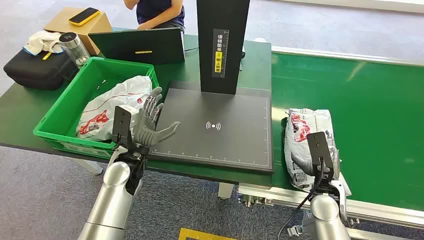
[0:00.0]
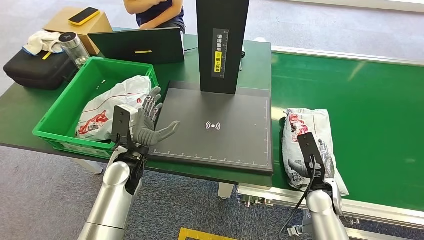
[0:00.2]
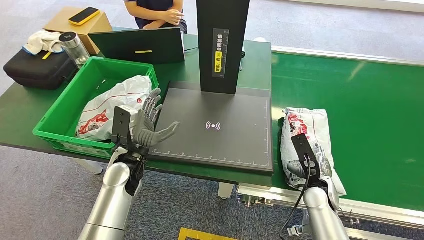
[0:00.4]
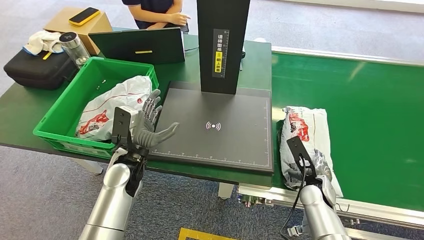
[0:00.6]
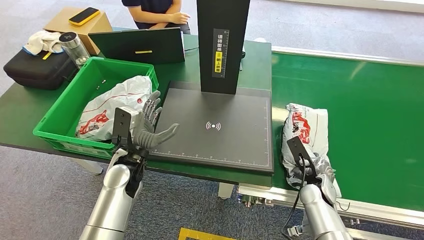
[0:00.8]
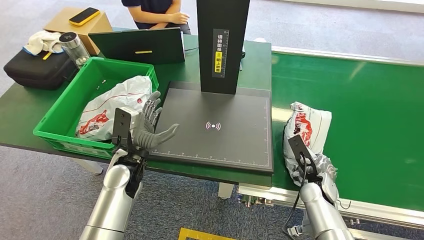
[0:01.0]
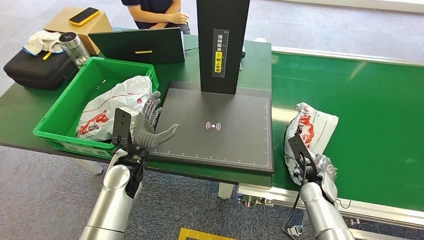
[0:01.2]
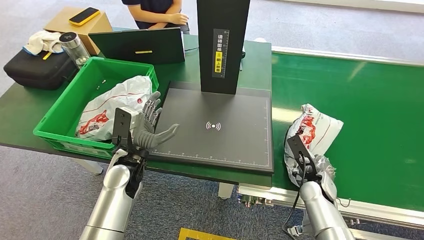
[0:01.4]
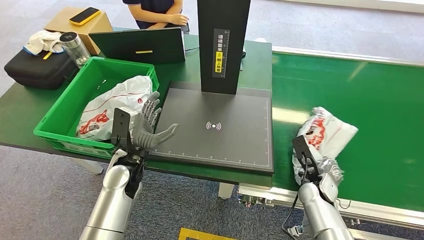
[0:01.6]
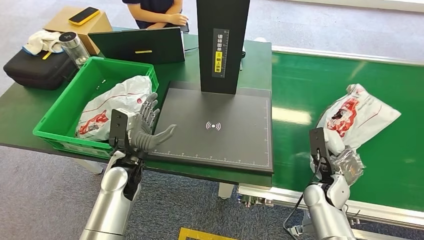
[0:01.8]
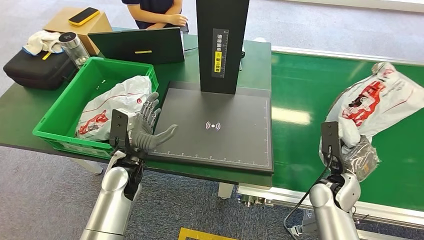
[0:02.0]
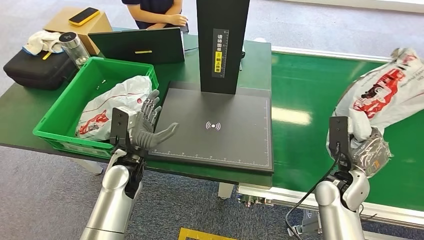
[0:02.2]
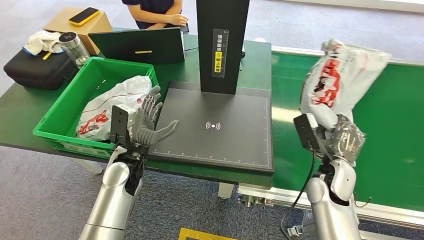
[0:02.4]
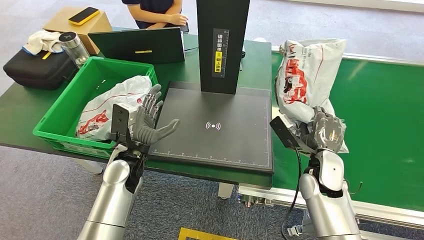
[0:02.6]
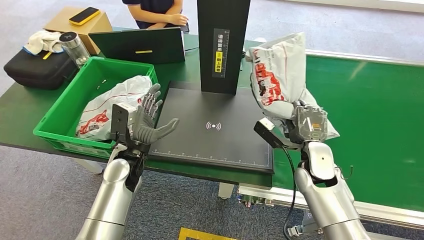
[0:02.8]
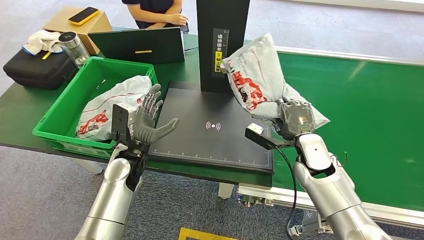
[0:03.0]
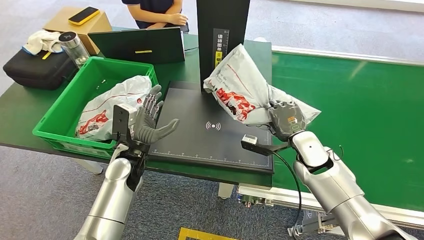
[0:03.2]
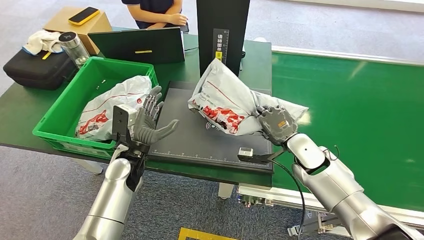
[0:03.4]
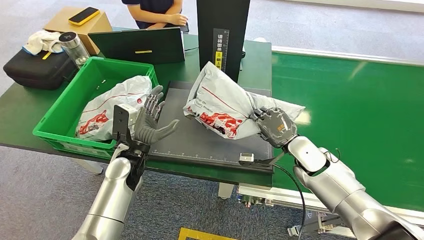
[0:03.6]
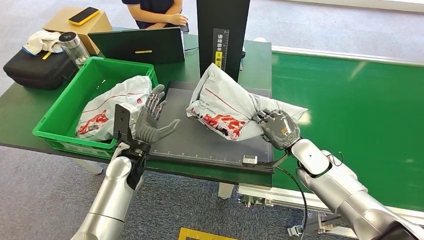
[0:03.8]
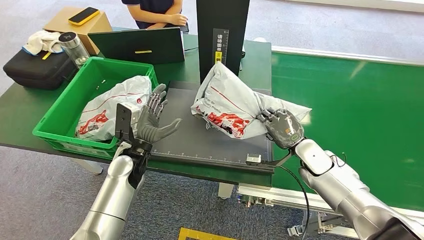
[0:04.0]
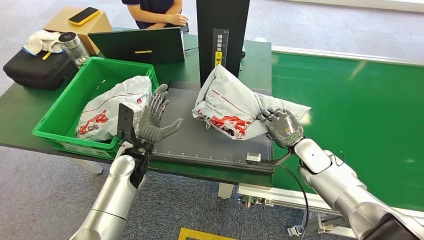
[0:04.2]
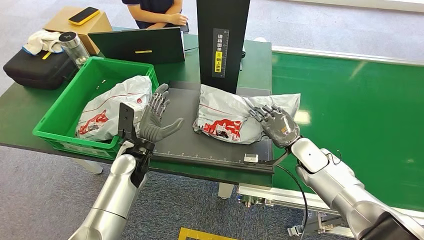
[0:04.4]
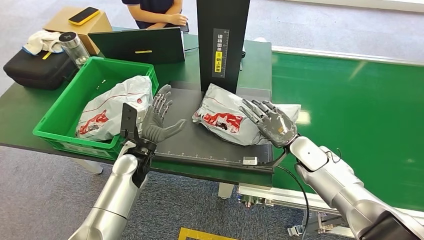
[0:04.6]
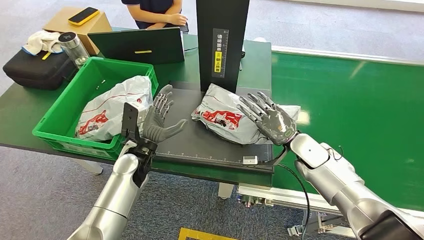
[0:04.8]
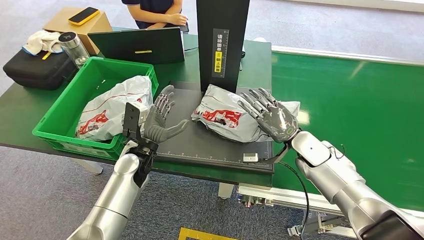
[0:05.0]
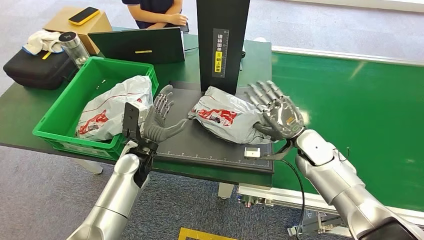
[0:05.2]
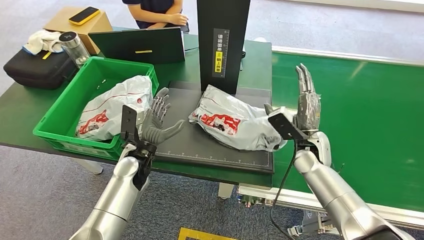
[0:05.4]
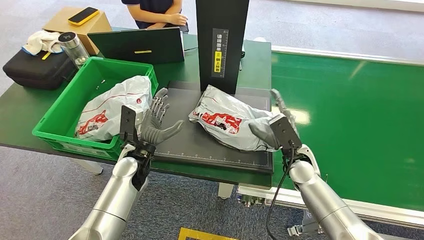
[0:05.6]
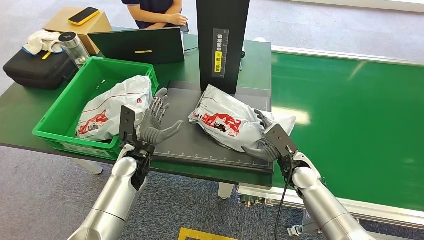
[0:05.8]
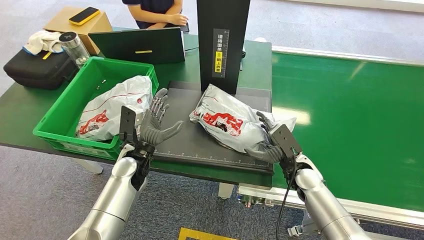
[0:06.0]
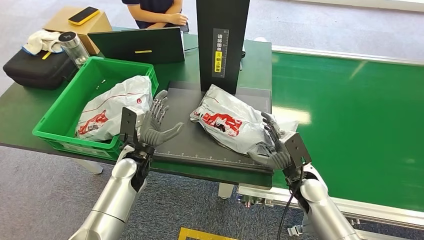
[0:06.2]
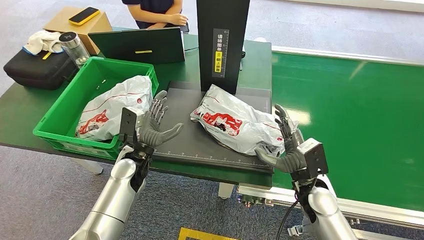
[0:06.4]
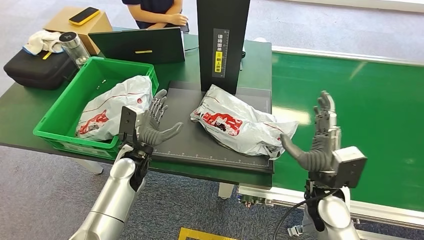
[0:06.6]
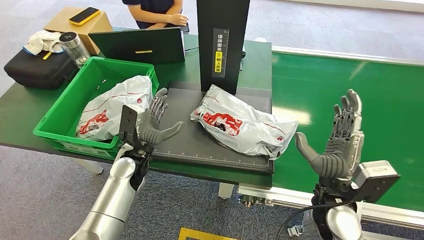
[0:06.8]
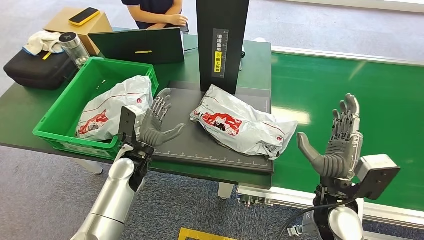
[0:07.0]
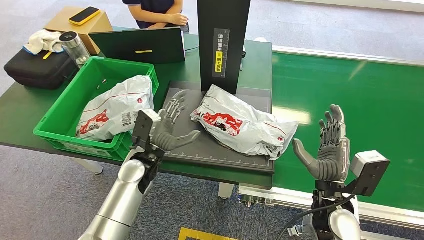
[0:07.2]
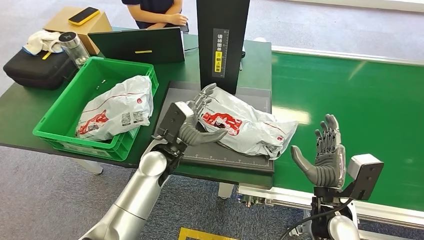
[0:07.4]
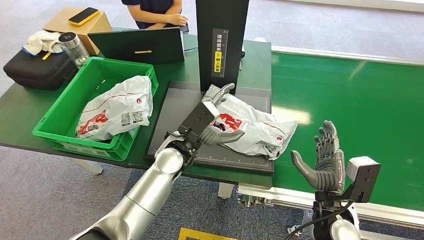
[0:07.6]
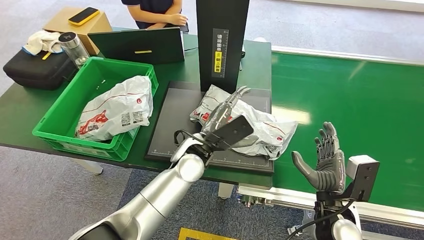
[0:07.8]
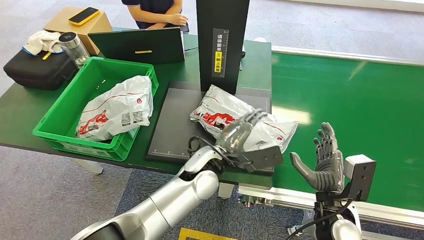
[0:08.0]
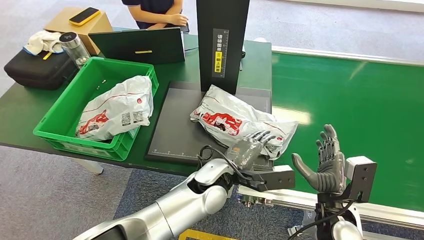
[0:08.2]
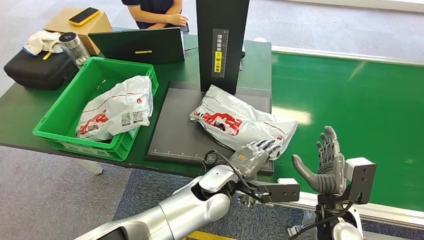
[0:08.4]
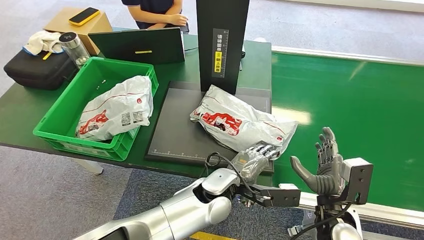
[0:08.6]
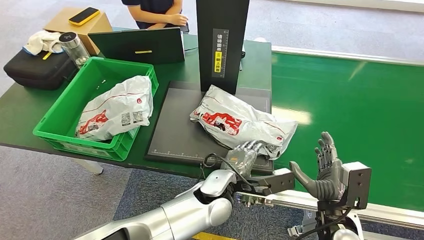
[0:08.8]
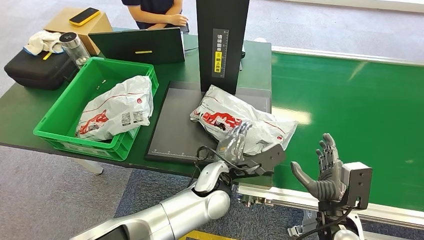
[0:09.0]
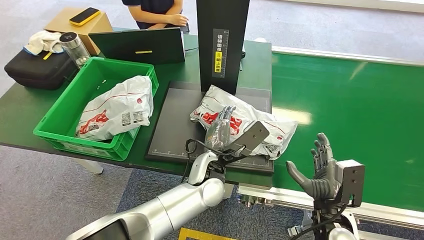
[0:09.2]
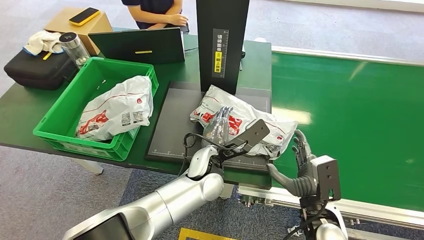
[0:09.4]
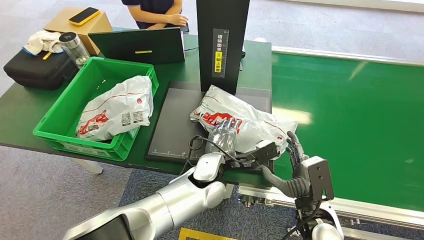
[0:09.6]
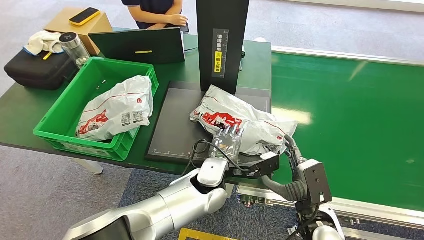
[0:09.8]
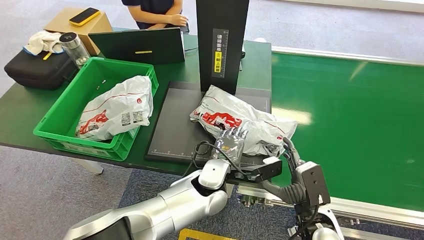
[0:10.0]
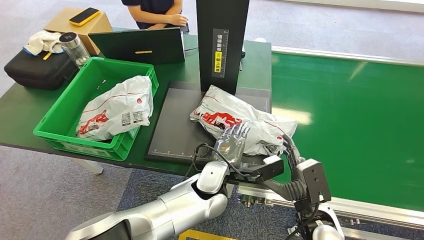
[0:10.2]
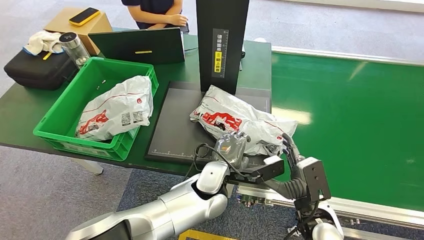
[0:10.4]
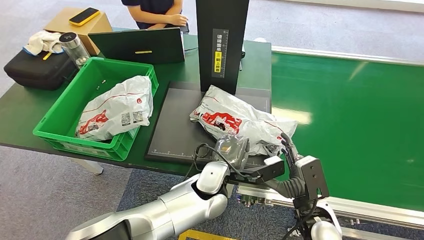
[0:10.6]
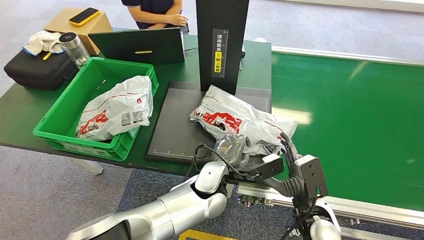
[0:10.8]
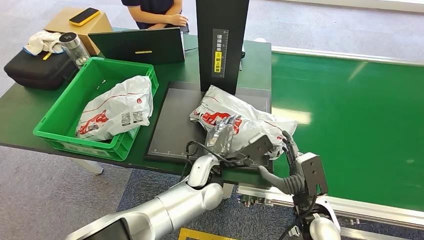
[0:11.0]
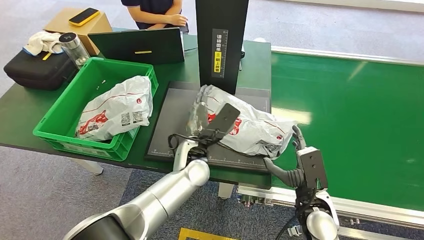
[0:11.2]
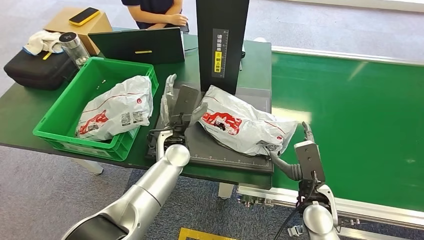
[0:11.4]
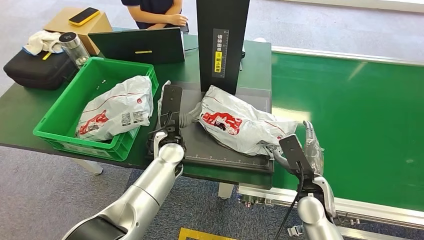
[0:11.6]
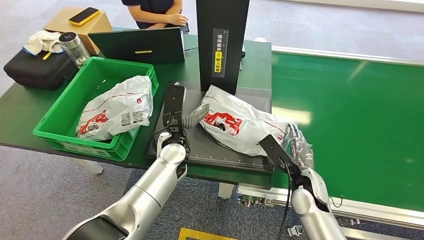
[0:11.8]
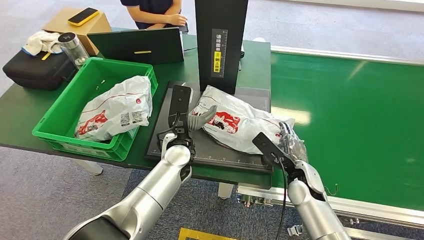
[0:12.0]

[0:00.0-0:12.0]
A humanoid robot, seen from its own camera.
Step, 0:00.0 to 0:02.8: Pick up the package from the conveyor belt.
Step, 0:03.0 to 0:07.2: Place the package onto the inbound machine.
0:01.6 to 0:03.0: The right hand heads upward and forward, covering approximately 15 cm.
0:04.4 to 0:06.0: The right hand goes approximately 5 cm downward and backward.
0:06.0 to 0:07.6: The right hand is displaced backward by about 10 cm; the left hand goes about 10 cm to the right and upward.
0:07.6 to 0:09.0: The left hand moves about 5 cm.
0:10.4 to 0:12.0: The right hand goes approximately 10 cm forward.

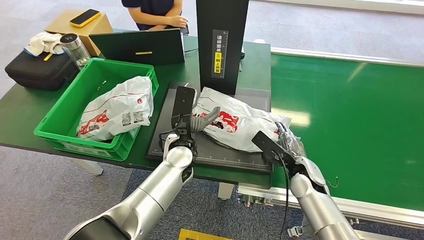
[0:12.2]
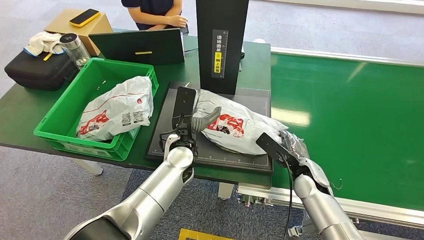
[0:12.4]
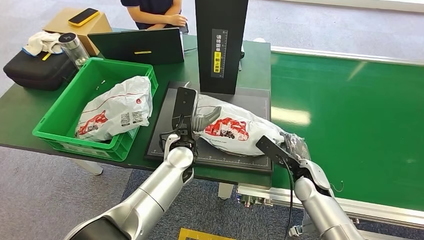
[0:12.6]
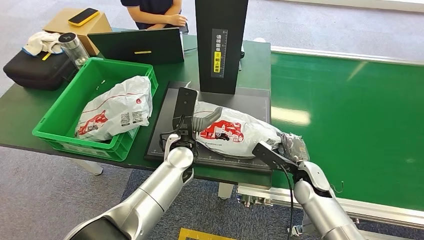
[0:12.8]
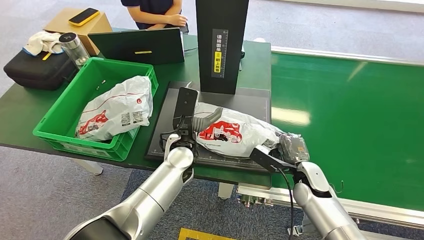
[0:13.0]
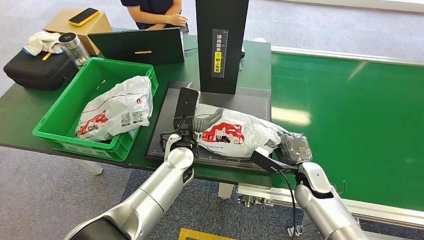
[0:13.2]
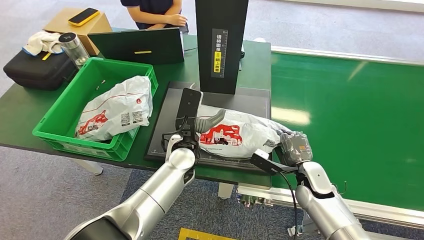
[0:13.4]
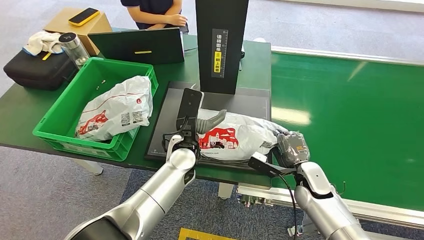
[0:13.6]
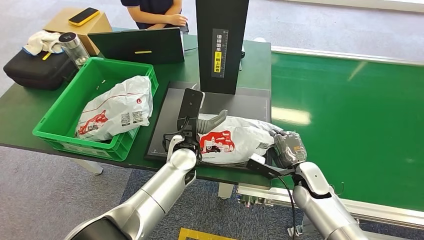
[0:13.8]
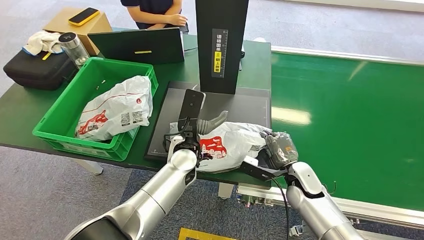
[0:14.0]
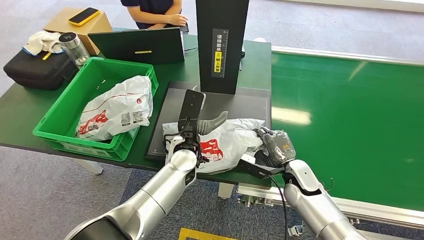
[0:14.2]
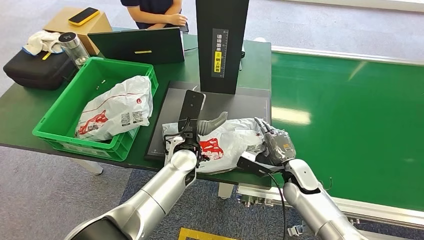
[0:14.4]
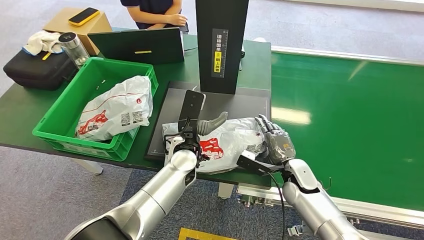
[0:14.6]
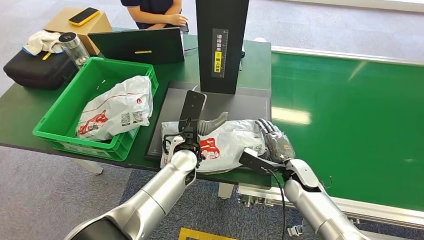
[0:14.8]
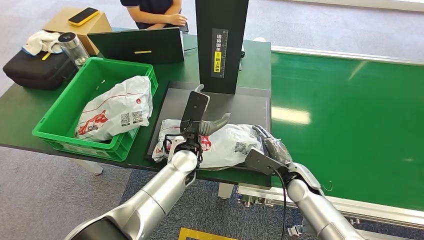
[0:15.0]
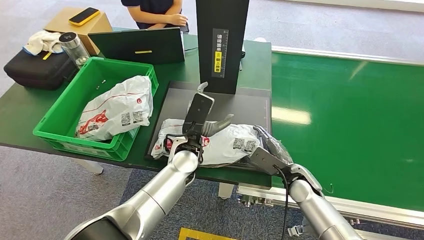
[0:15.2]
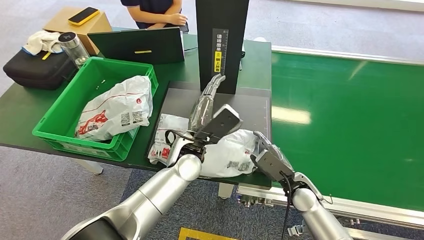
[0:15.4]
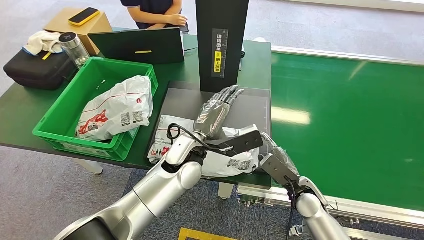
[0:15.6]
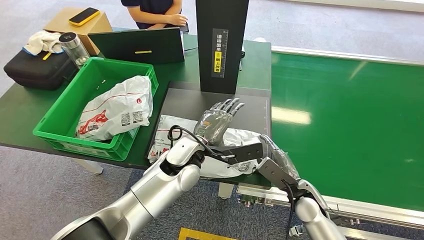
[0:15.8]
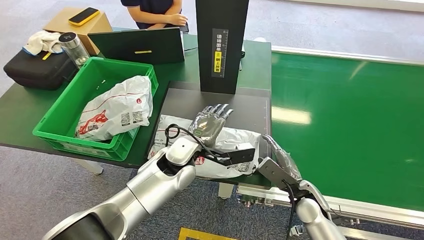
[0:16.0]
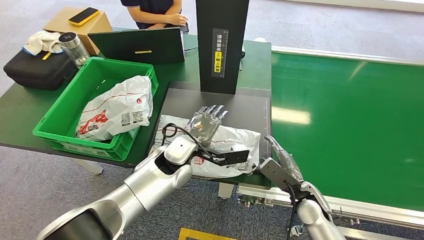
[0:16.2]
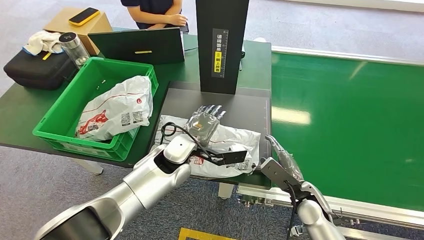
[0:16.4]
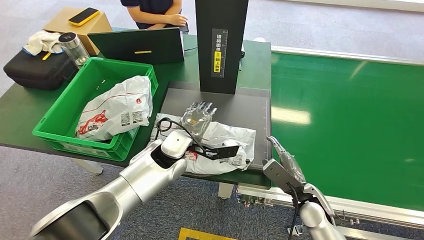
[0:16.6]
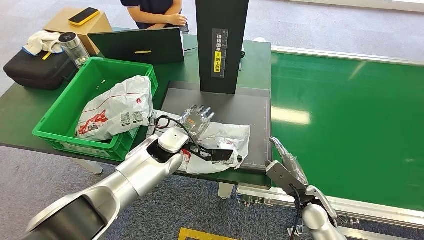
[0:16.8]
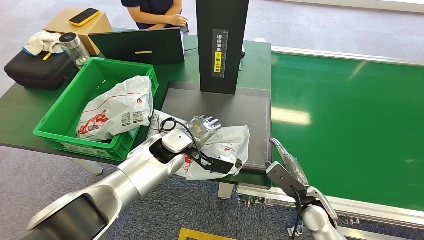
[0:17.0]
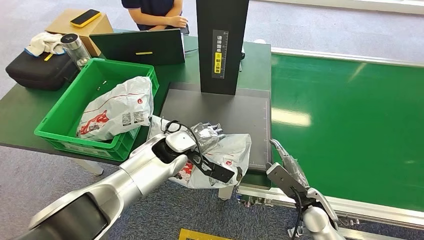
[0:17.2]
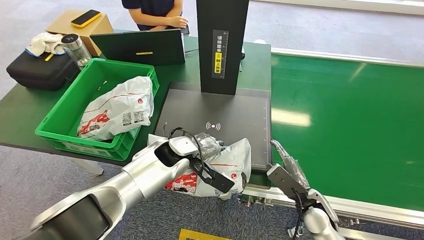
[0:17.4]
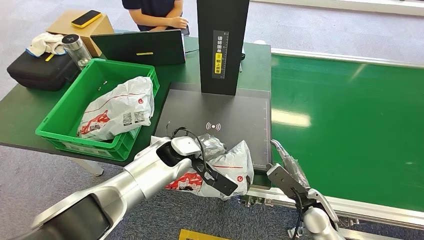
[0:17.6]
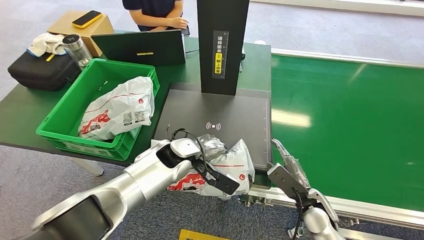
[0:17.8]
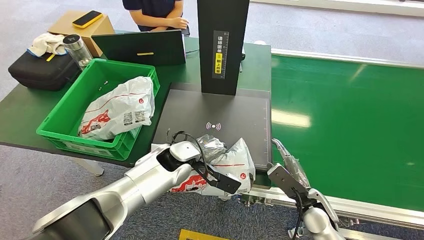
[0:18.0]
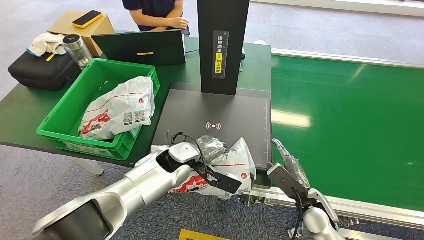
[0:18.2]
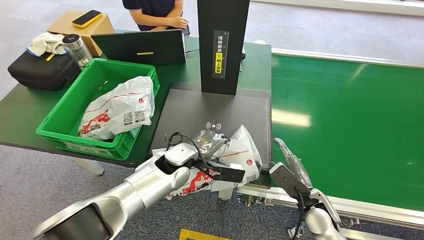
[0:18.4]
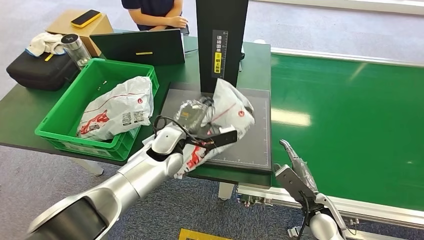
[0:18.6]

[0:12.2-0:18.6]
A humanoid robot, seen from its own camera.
0:15.4 to 0:17.0: The left hand shifts roughly 10 cm to the left.
